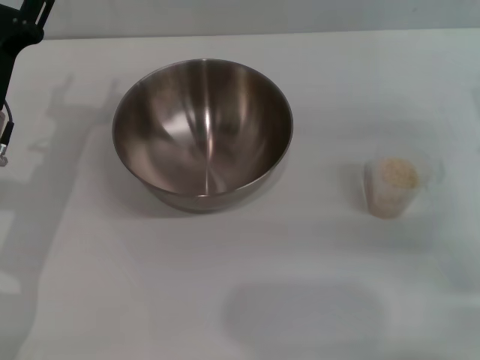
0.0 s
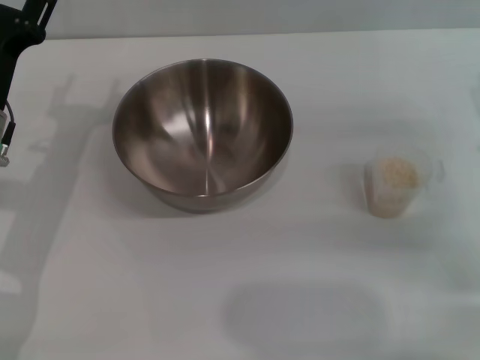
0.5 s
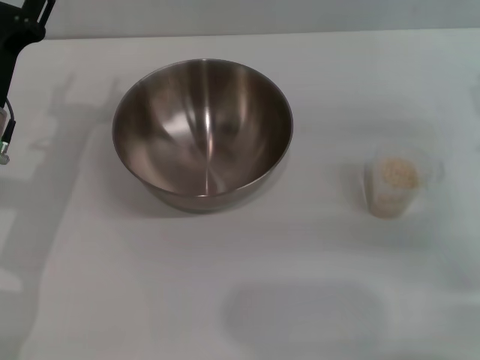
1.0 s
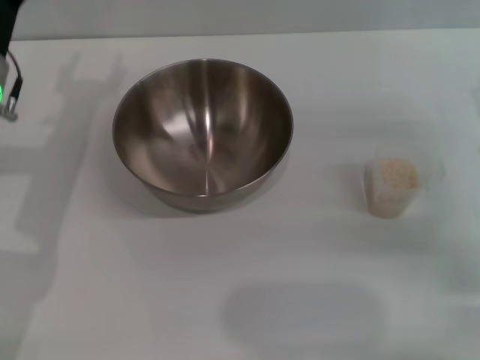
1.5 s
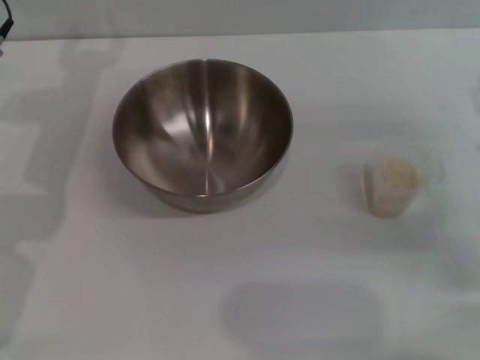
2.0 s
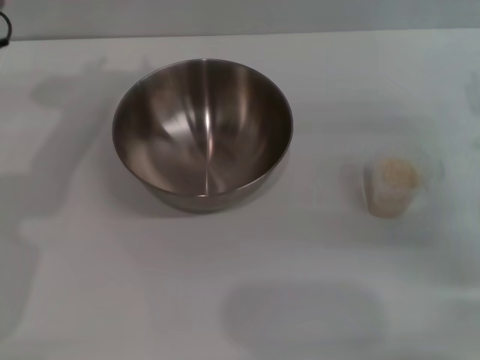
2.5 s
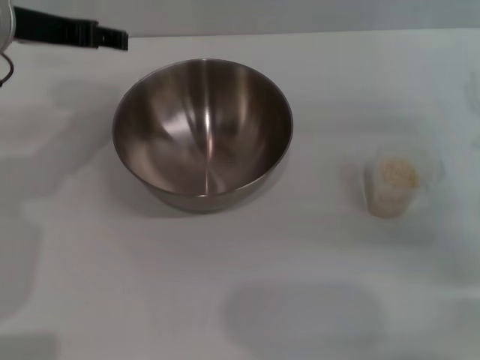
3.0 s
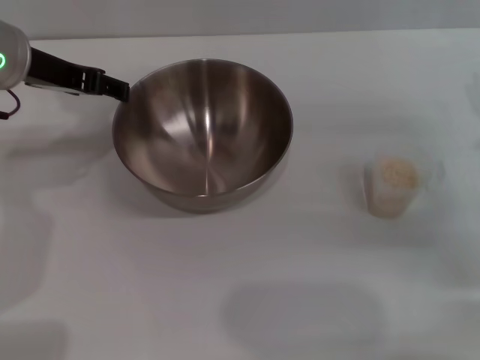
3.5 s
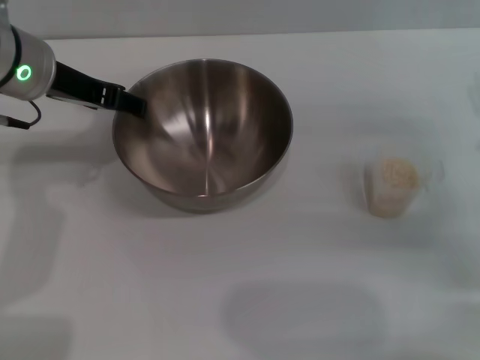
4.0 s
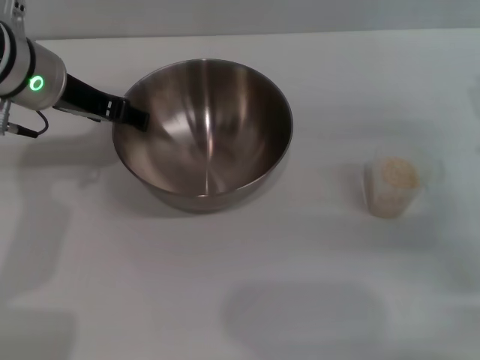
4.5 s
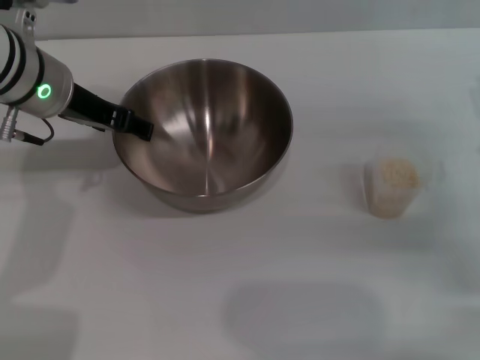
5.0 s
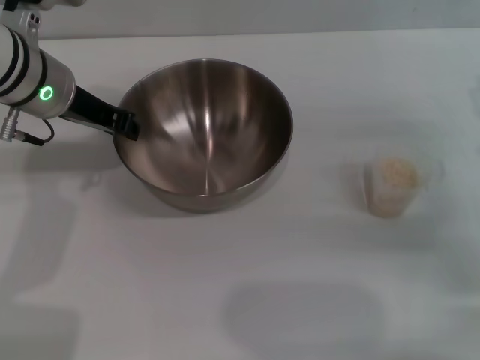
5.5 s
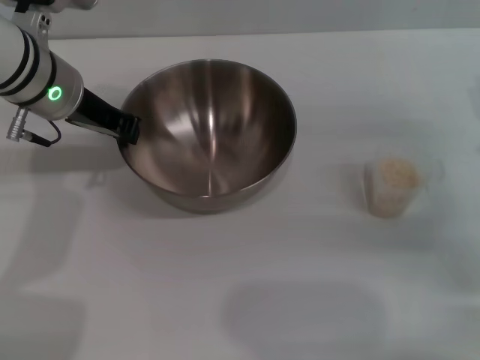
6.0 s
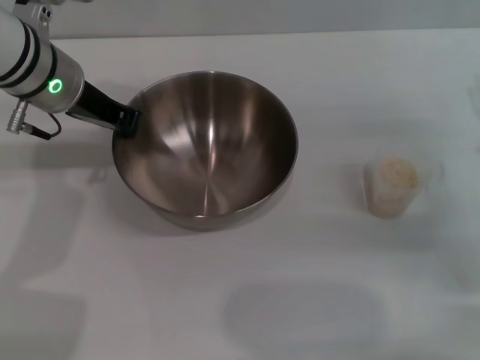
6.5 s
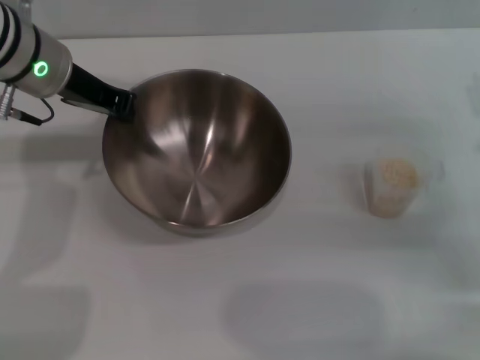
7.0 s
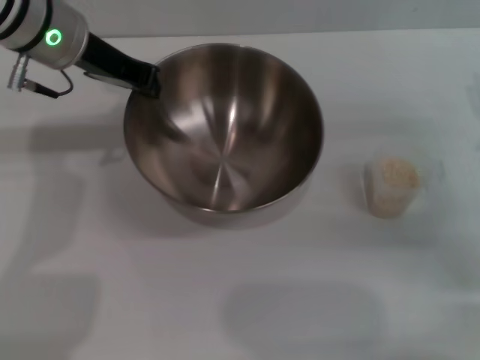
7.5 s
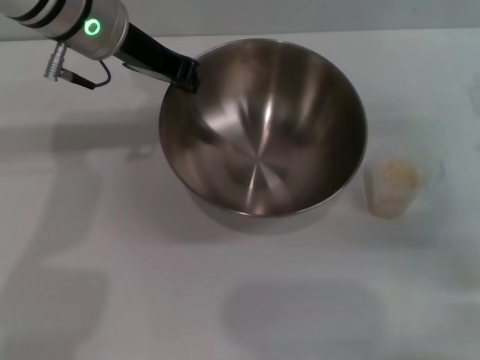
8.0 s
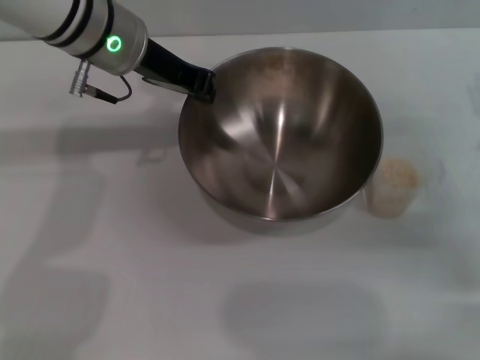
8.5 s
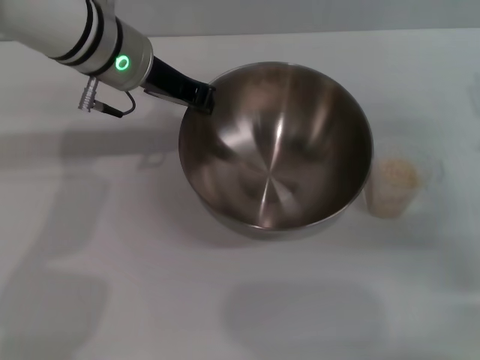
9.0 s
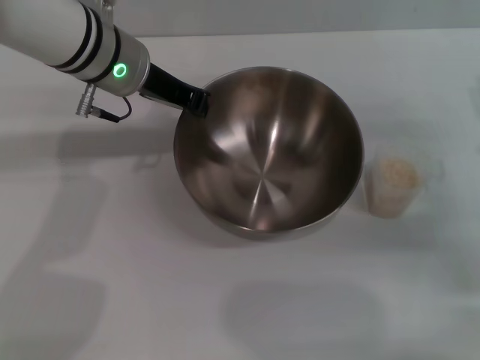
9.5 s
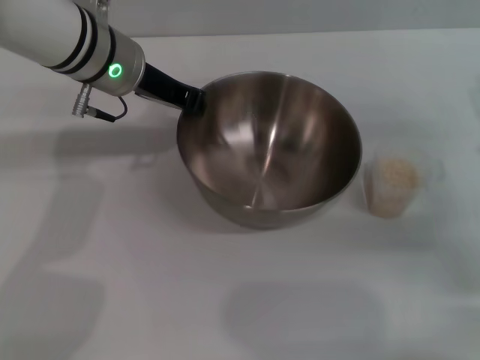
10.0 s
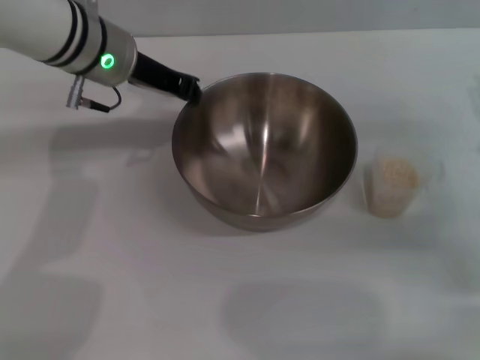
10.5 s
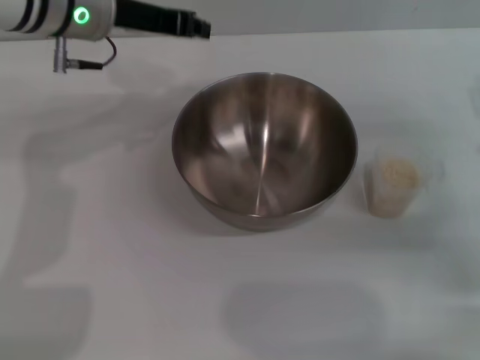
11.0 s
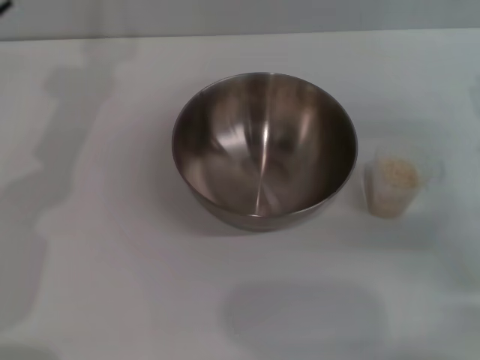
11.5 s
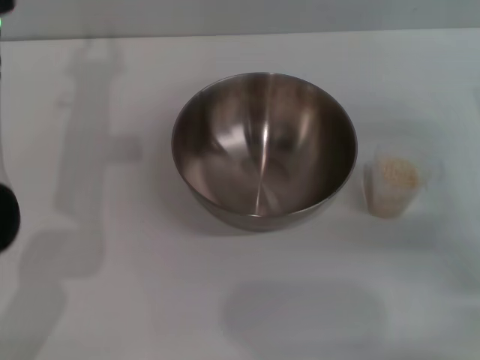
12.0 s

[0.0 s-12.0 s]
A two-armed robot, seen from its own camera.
Task of the whole recording: Place the bowl in the middle of the table with one hand and pour the rice from the grain cup into it with the other hand.
Step, 0.0 to 7.5 s: Pick up the bowl with the left gripper.
Step, 8.0 to 10.5 s: Place the bowl in the center of view with the left gripper.
0.0 to 2.0 s: The left gripper goes some 15 cm upward and forward.
4.0 to 6.0 s: The left gripper closes.
6.0 to 8.0 s: The left gripper is displaced upward by about 5 cm.
8.0 to 10.0 s: The left gripper heads downward, covering some 5 cm.
10.0 to 12.0 s: The left gripper goes some 10 cm to the left and backward, and opens its fingers.

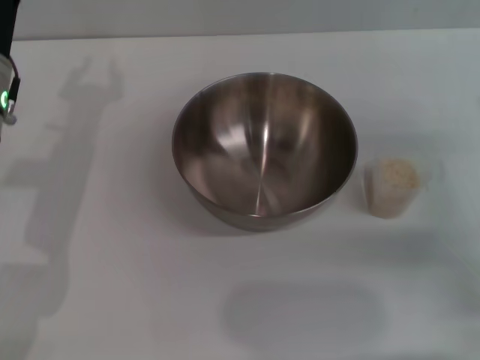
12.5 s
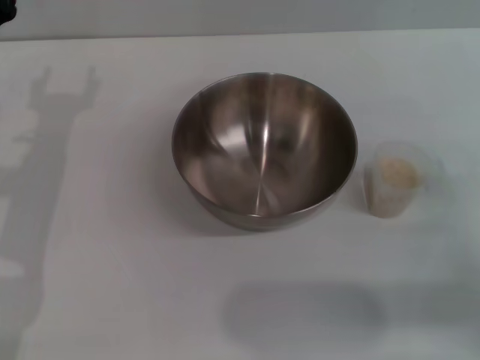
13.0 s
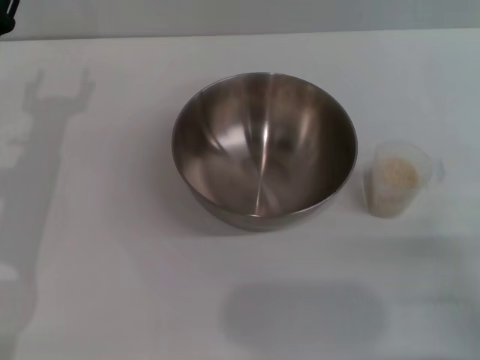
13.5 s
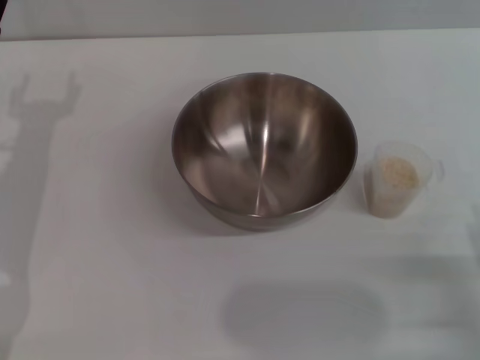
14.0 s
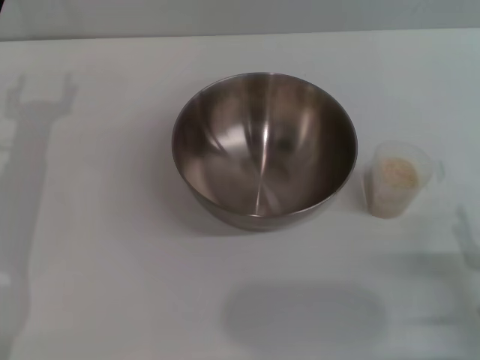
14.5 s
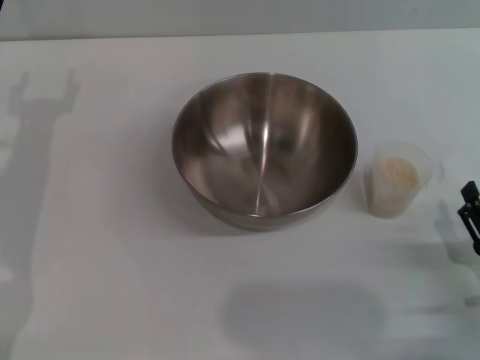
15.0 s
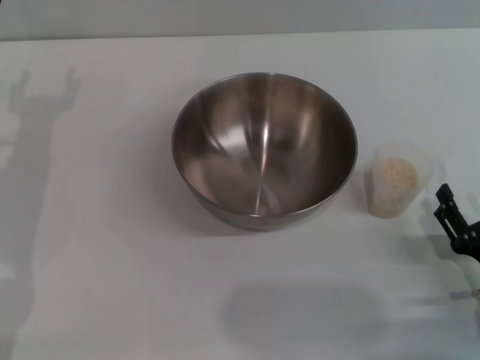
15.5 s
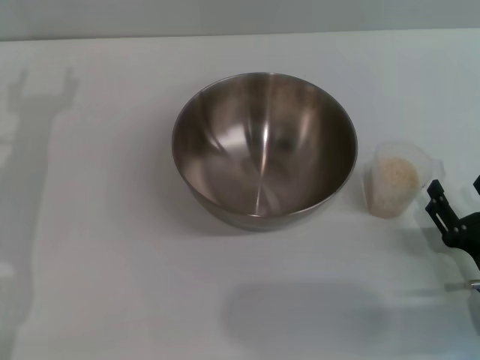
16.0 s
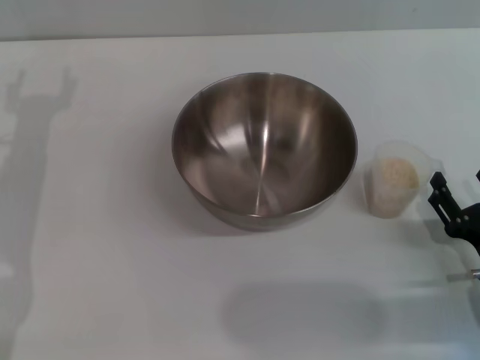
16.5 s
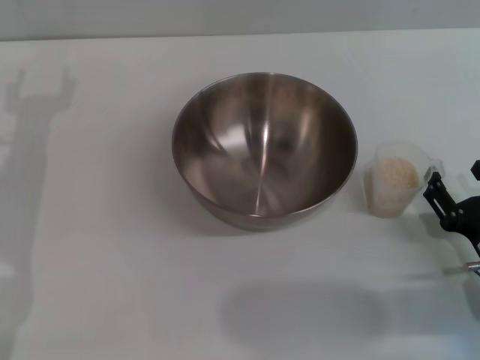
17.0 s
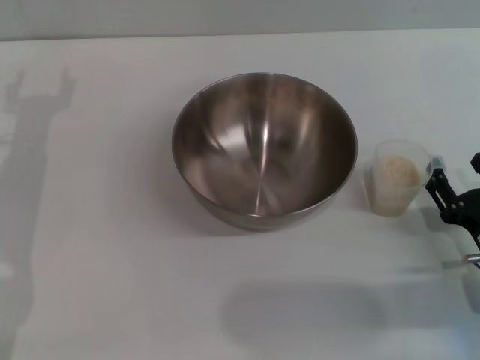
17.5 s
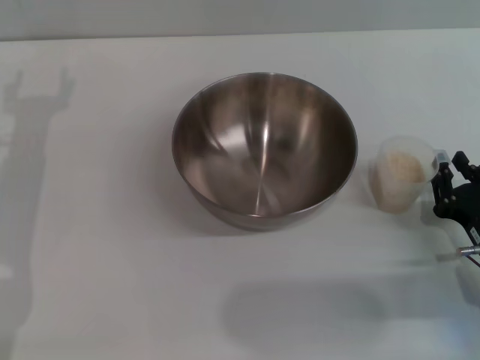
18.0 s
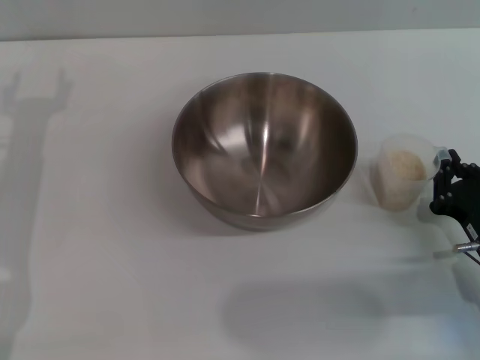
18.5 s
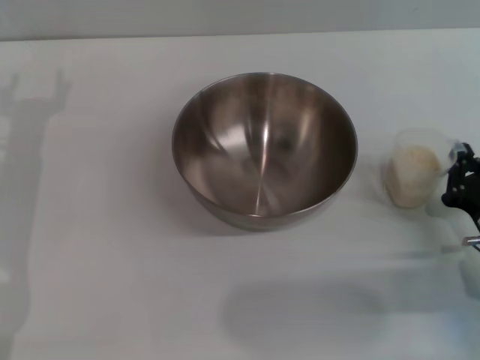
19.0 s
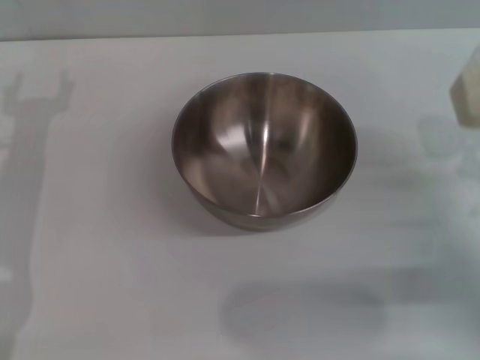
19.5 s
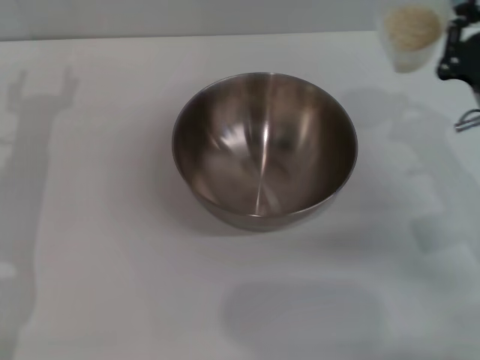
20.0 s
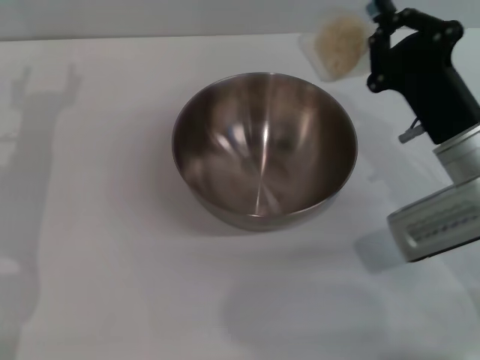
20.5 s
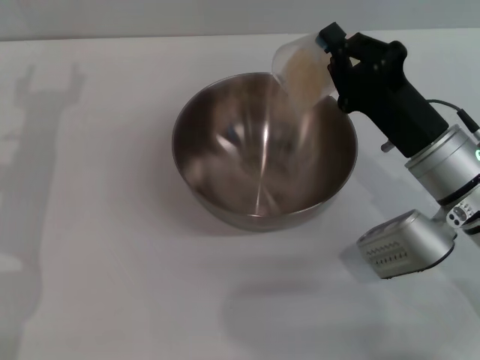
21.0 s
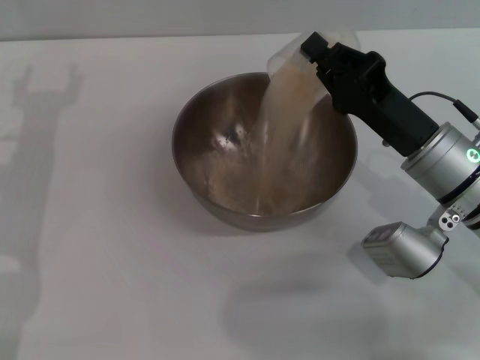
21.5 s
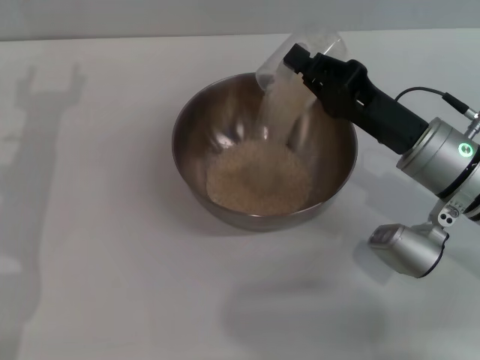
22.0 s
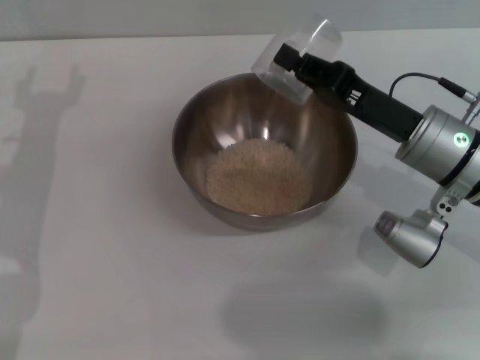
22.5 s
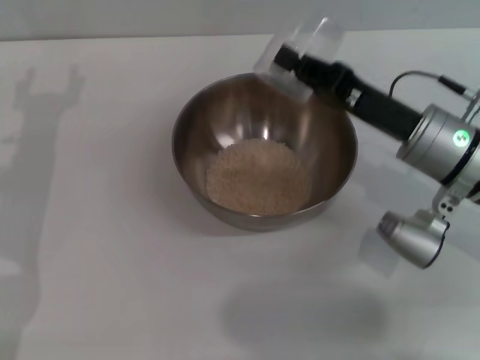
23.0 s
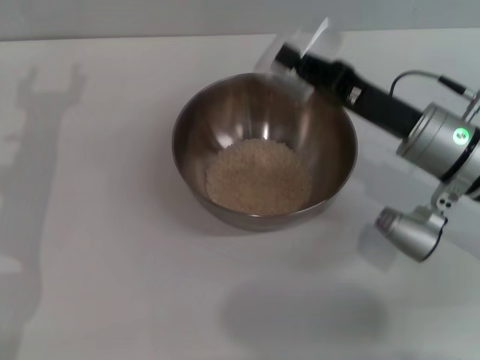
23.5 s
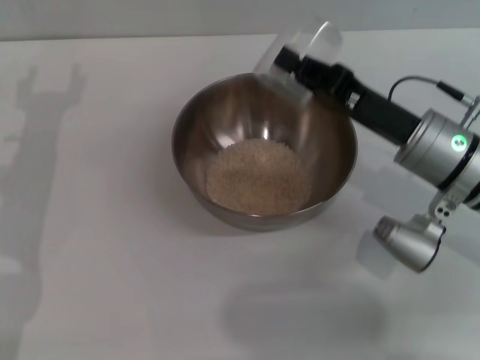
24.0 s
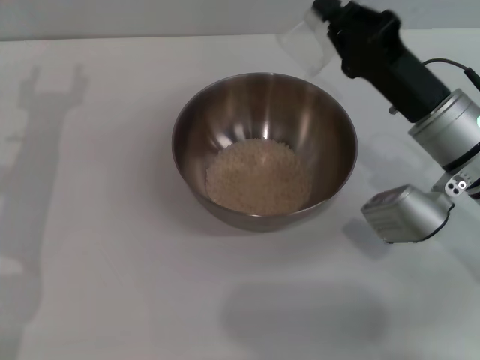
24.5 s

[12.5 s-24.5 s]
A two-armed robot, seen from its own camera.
Task of the whole recording: Place the bowl in the middle of the table with one hand and pour the rice from the grain cup into it with the other hand.
Step, 12.5 to 19.5 s: Pick up the cup with rice in it with the right gripper.
Step, 20.0 to 24.0 s: Pour the rice from the cup into the bowl with the right gripper.
12.5 to 14.5 s: The right gripper is displaced backward and downward by about 15 cm. Meanwhile the left gripper is displaced to the left by roughly 5 cm, and opens up.
14.5 to 16.5 s: The right gripper shifts about 5 cm forward.
16.5 to 18.5 s: The right gripper closes up.
18.5 to 20.5 s: The right gripper goes about 15 cm upward, forward and to the left.

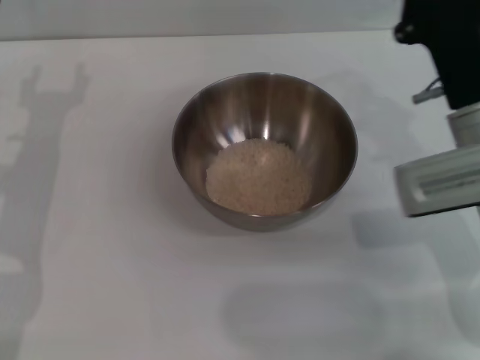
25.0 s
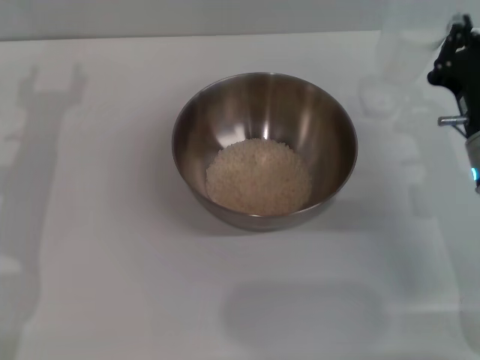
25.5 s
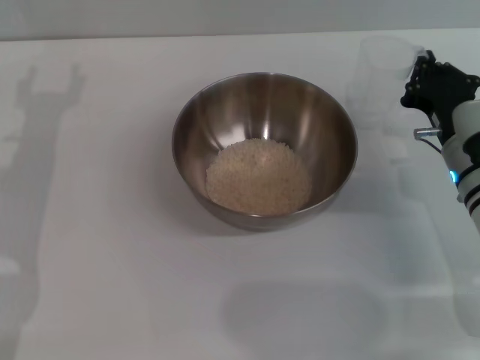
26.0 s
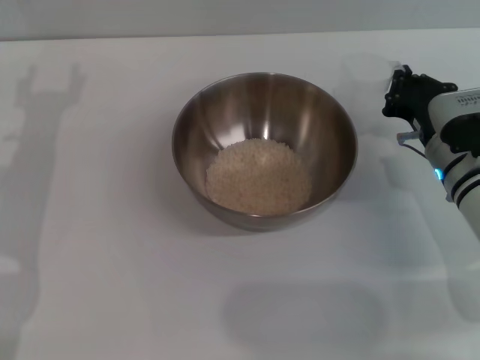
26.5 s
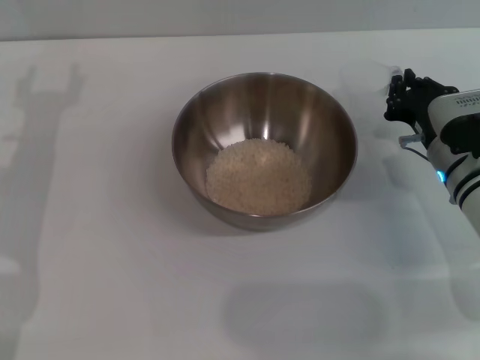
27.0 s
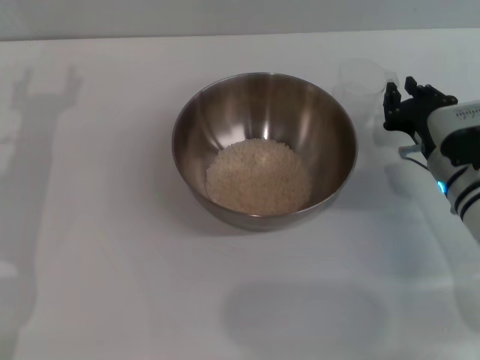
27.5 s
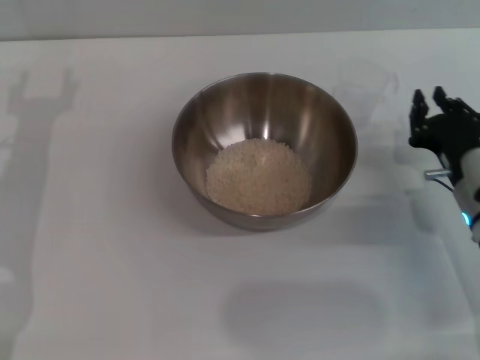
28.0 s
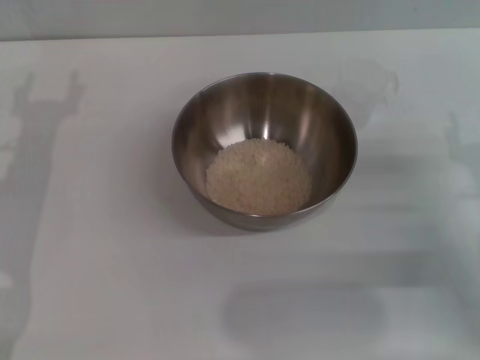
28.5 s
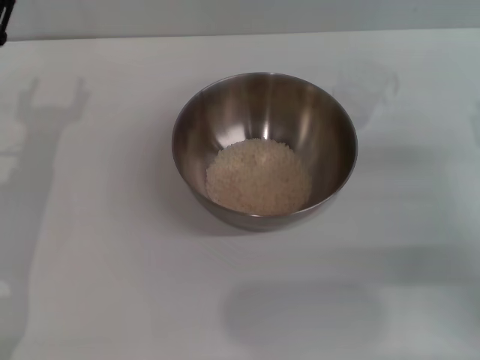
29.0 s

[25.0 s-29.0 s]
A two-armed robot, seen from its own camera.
Task of the whole recording: Place the bowl in the middle of the table with one hand and pour the rice from the grain cup into it with the other hand.
Step, 25.0 to 27.5 s: Place the cup on the table with the right gripper.
25.0 to 27.0 s: The right gripper is displaced downward by roughly 5 cm.
27.0 to 29.0 s: The right gripper travels to the right and backward by roughly 10 cm, and opens up.
